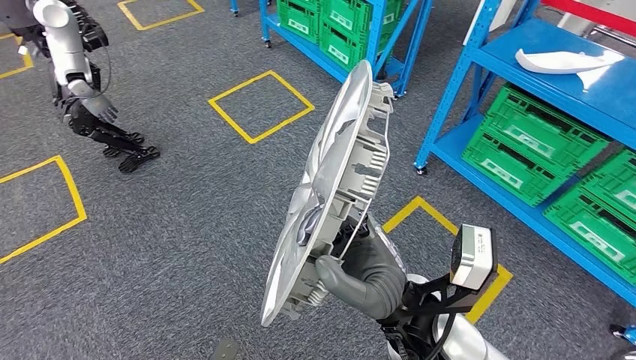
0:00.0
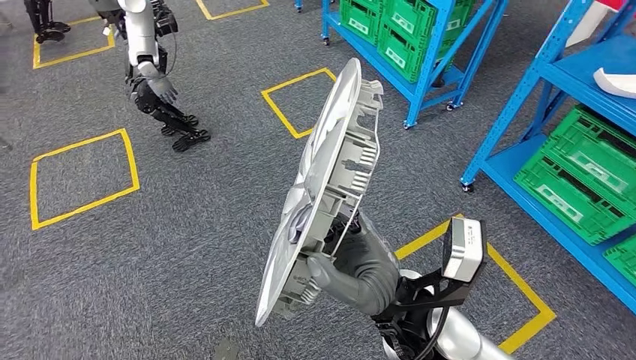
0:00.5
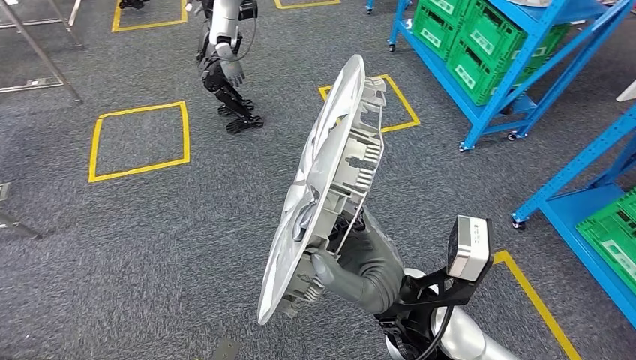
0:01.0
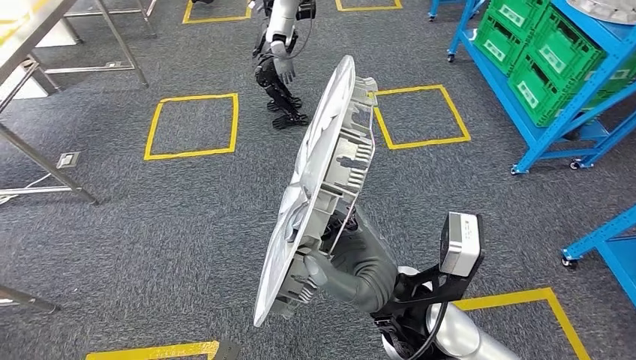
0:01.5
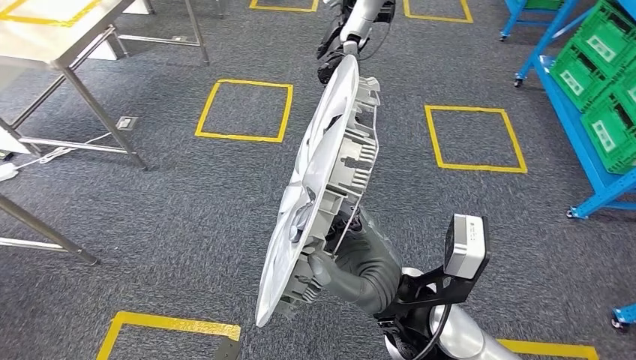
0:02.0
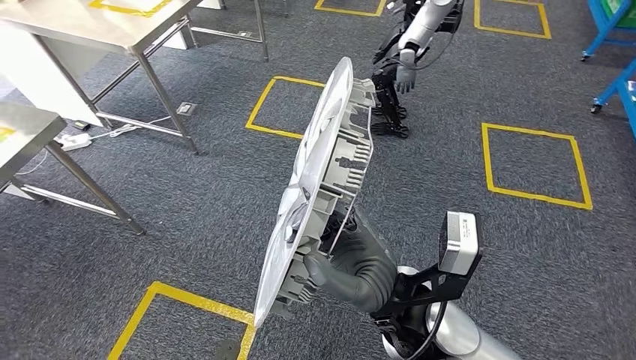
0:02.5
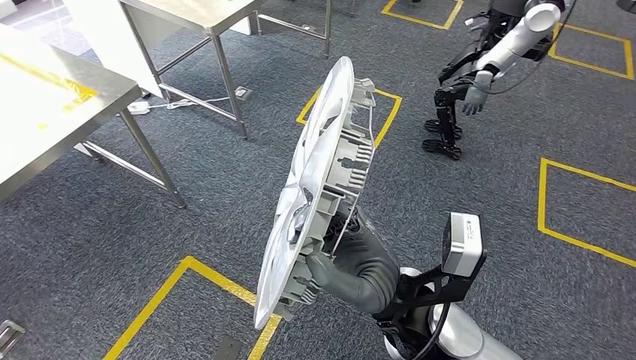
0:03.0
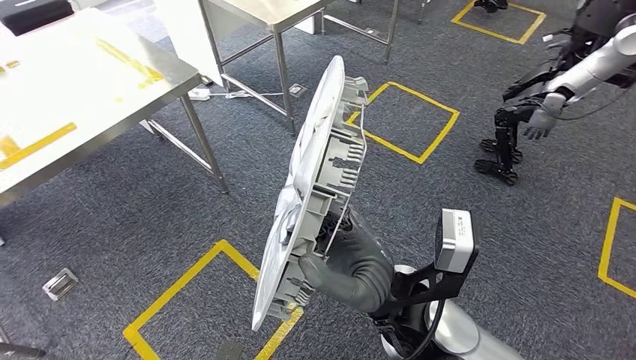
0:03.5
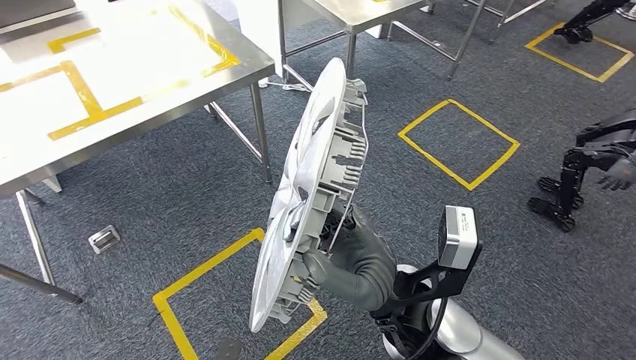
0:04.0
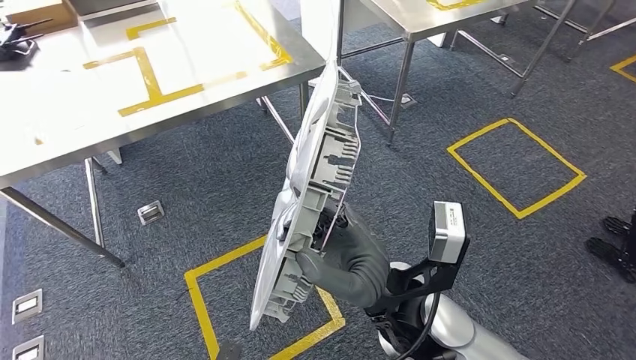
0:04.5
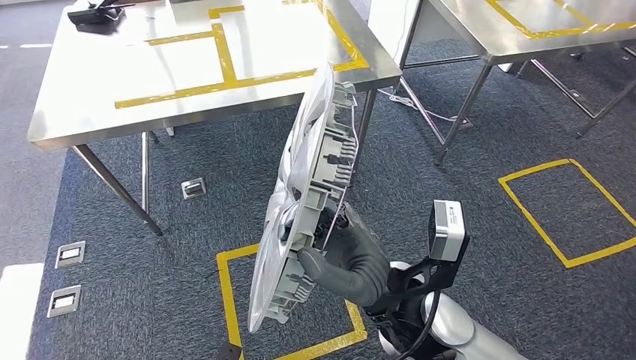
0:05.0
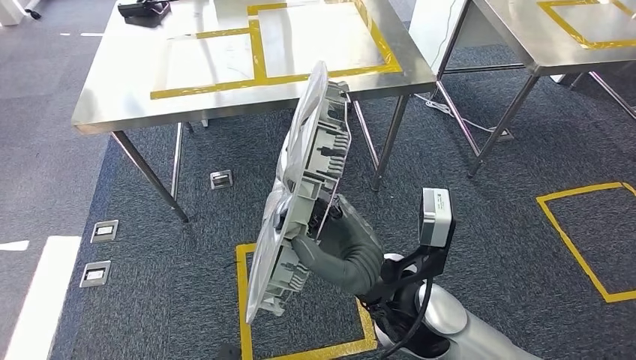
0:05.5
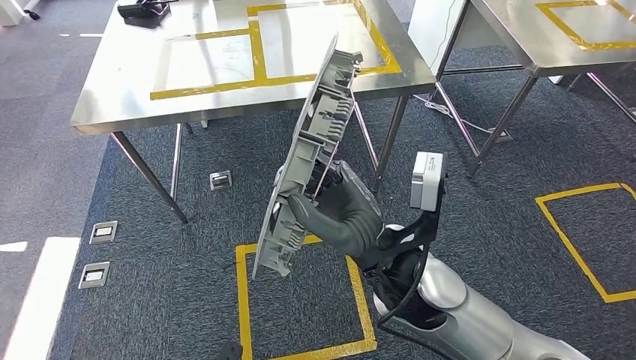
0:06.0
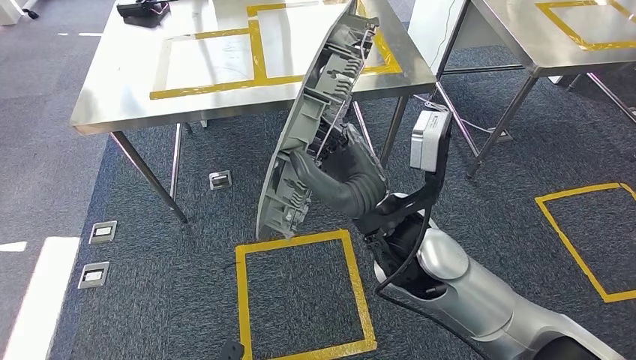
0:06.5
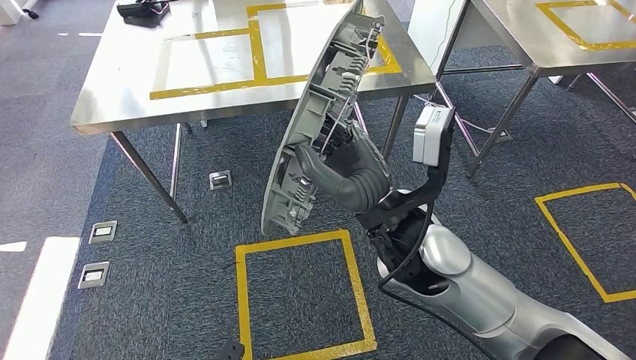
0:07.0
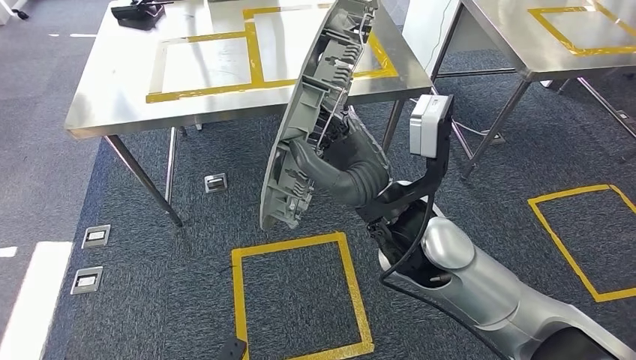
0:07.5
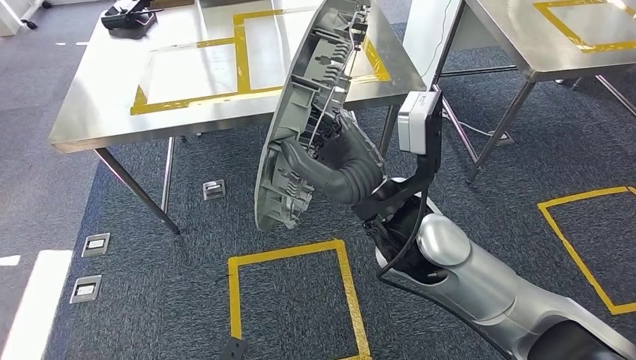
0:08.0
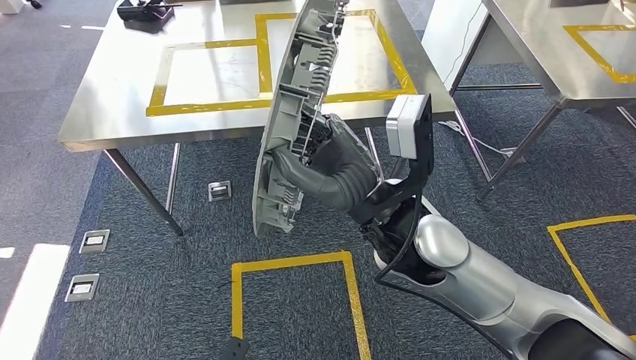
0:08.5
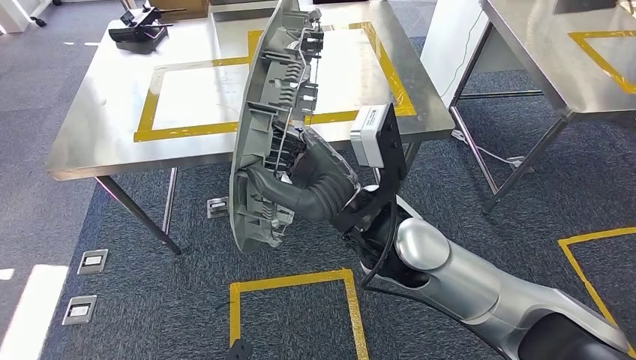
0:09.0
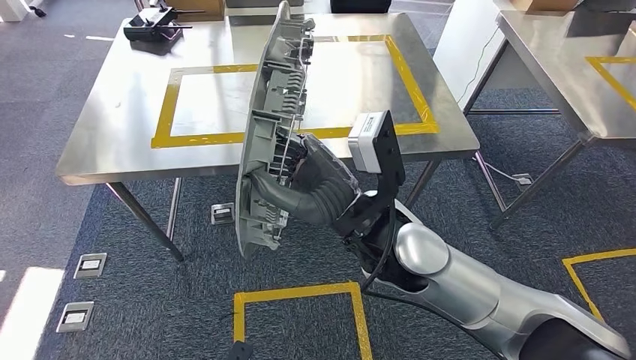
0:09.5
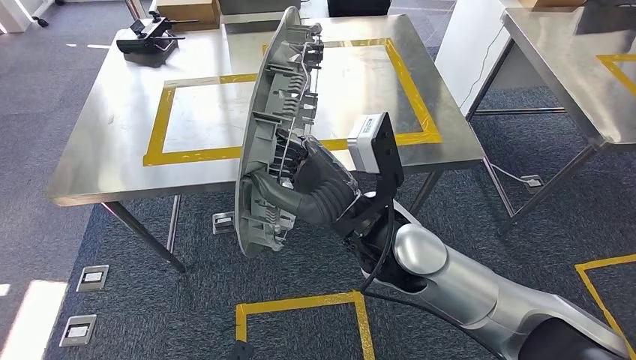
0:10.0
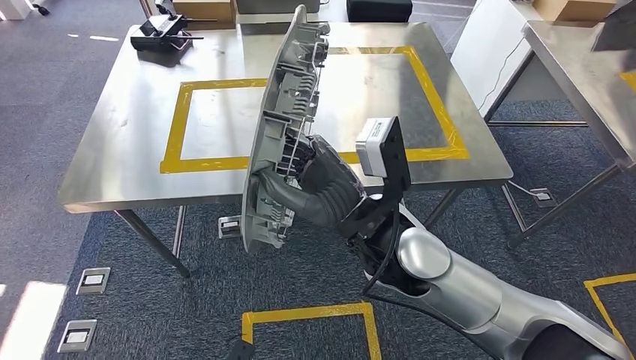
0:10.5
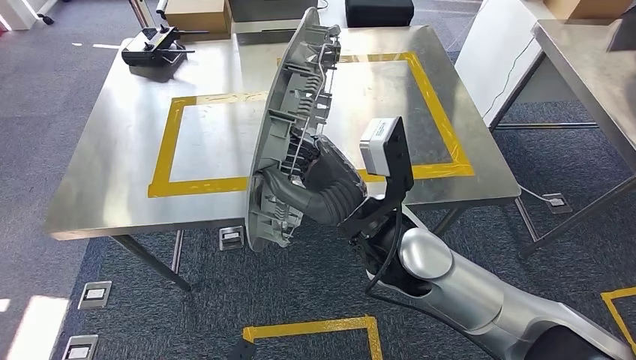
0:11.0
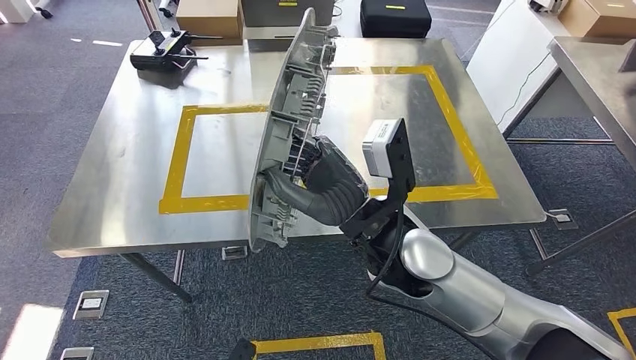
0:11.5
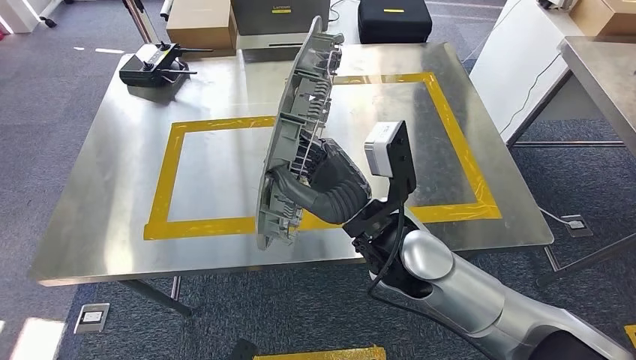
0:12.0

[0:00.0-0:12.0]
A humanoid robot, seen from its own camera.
Step, 0:00.0 to 0:07.5: Move the large material to the workbench.

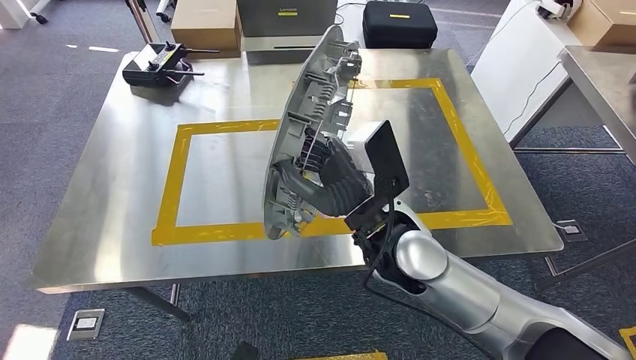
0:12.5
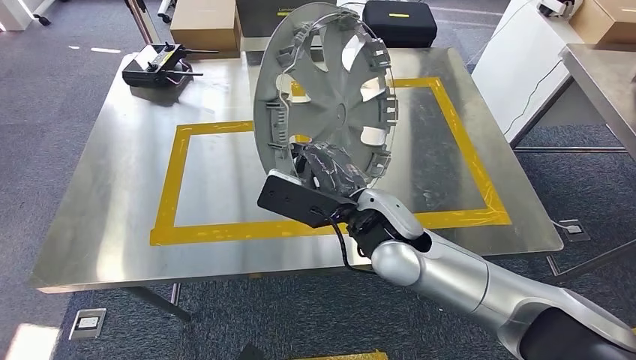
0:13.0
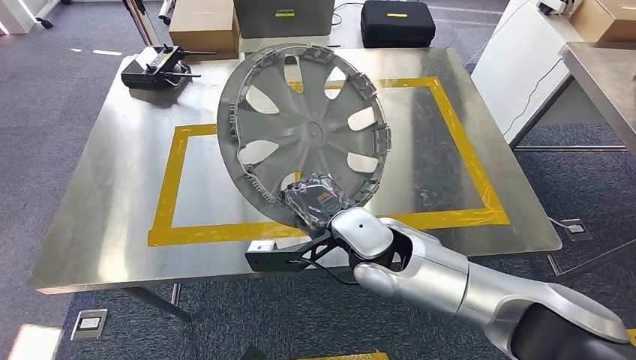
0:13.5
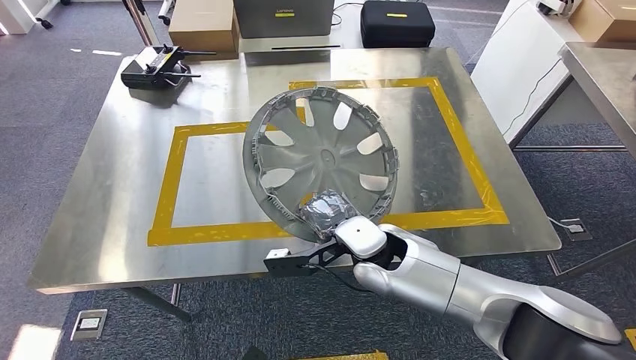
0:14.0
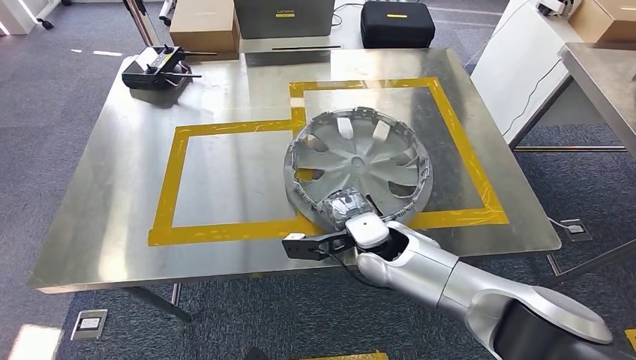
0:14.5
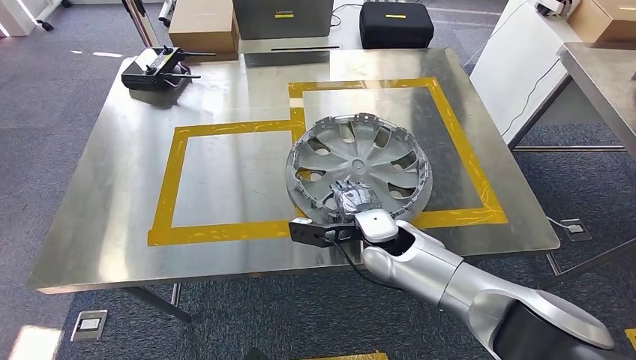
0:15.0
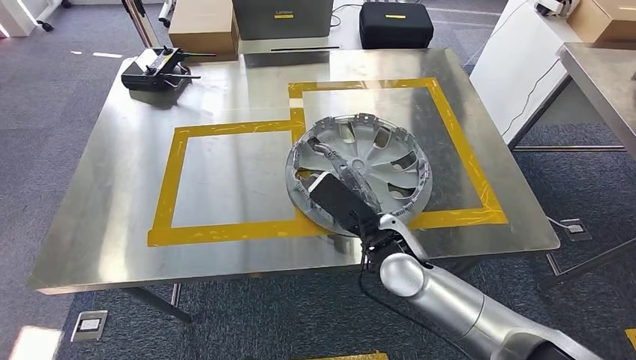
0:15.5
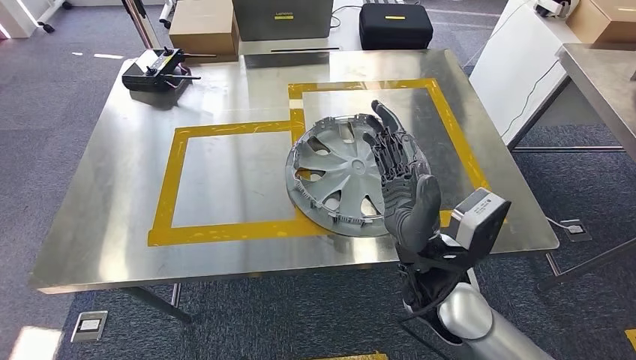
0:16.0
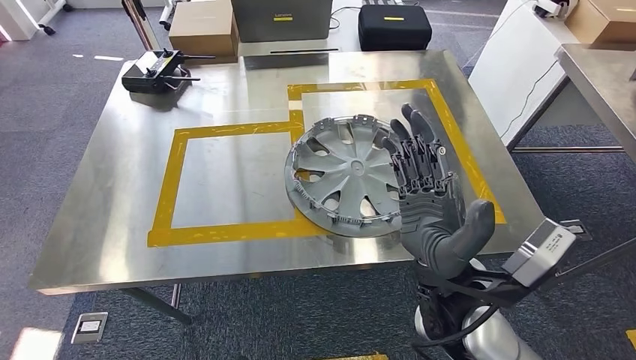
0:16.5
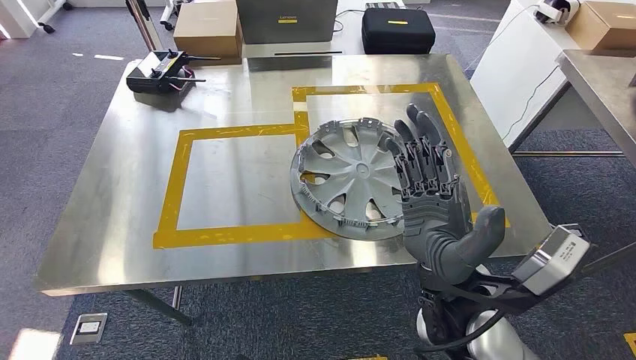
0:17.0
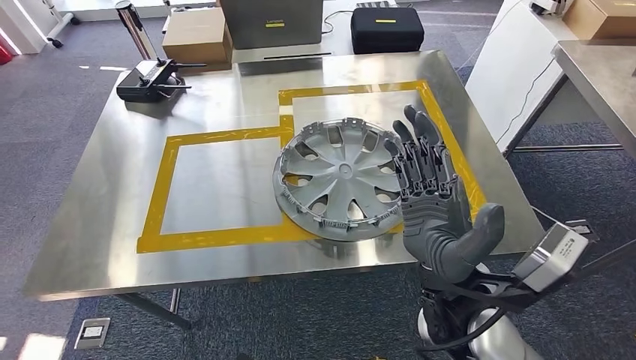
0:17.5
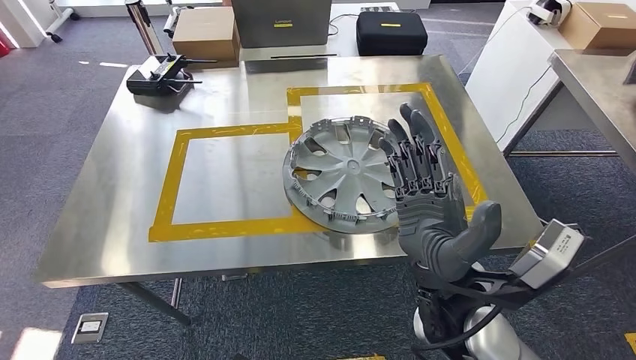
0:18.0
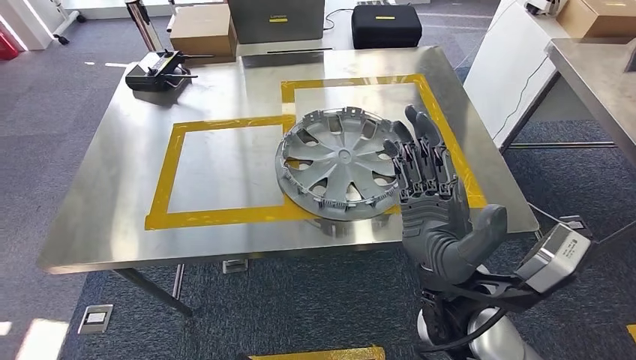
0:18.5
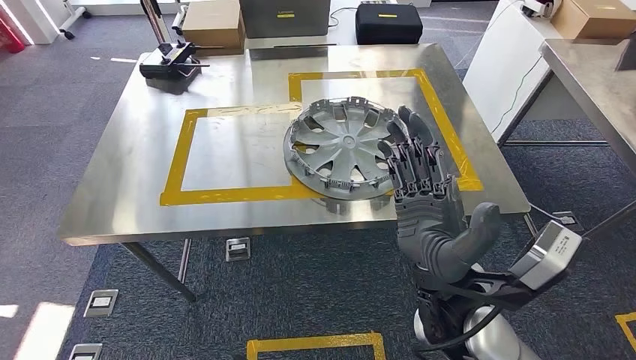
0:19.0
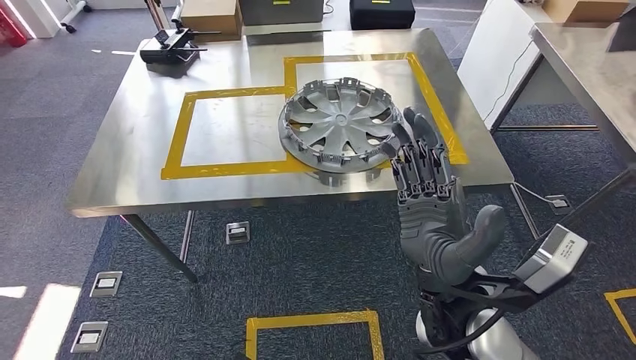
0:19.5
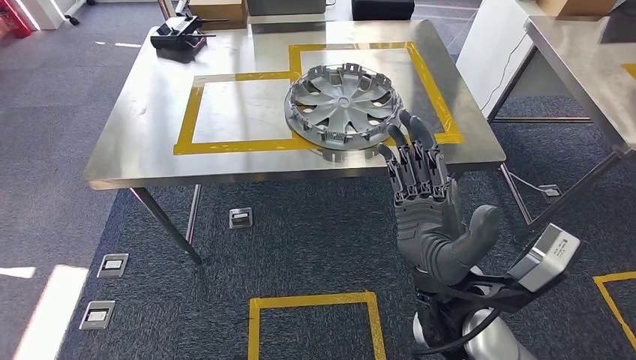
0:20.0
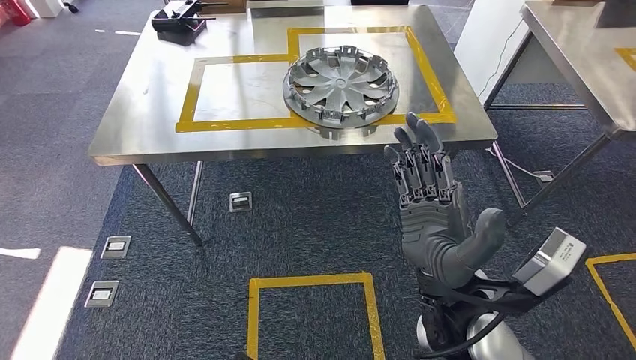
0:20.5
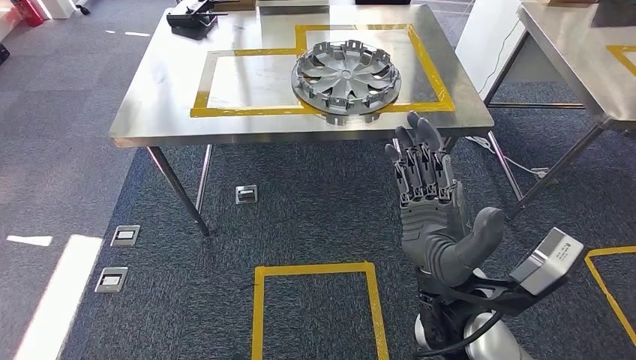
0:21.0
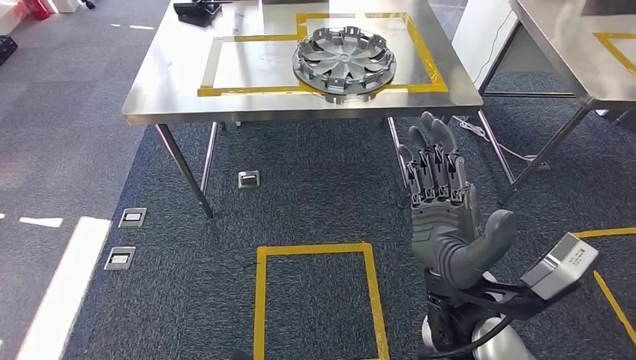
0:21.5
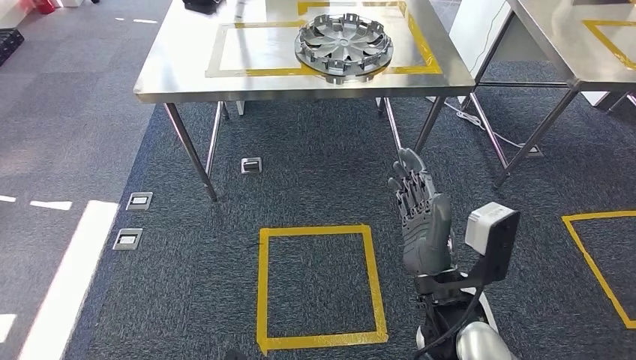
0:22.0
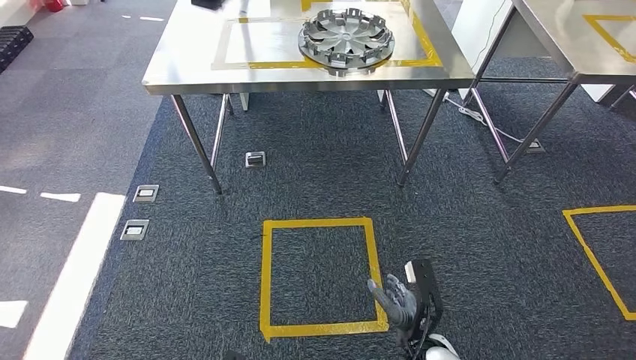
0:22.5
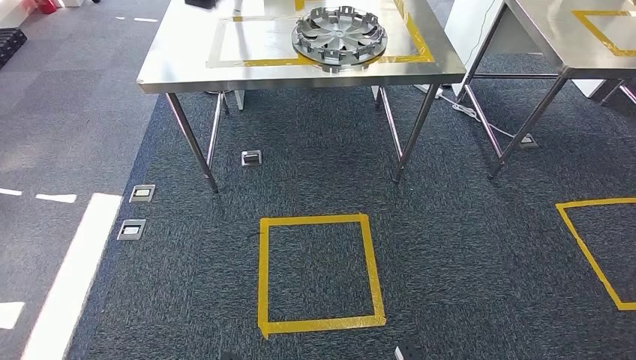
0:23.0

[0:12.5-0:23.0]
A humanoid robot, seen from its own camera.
Step, 0:12.5 to 0:16.5: Insert the large material into the corresponding slot on the workbench.
Step, 0:17.0 to 0:23.0: Move to the initial position of the shelf.
